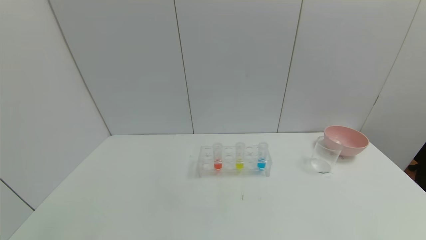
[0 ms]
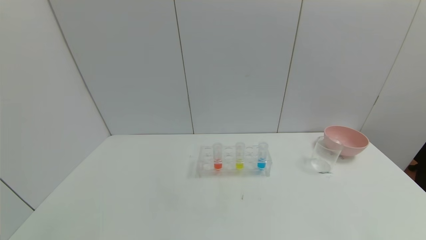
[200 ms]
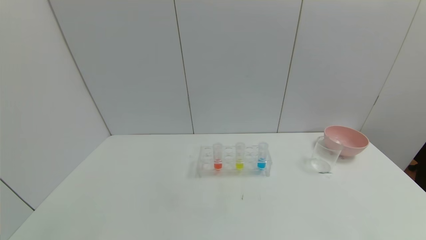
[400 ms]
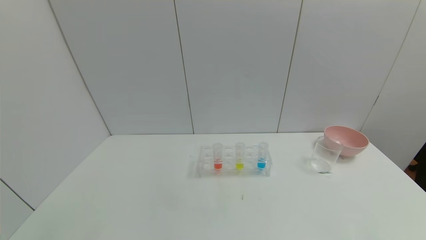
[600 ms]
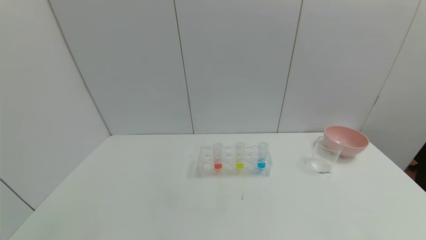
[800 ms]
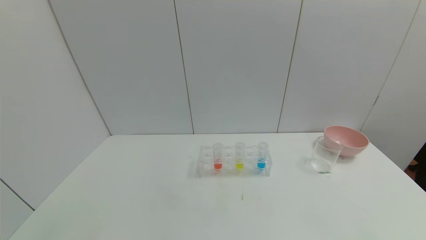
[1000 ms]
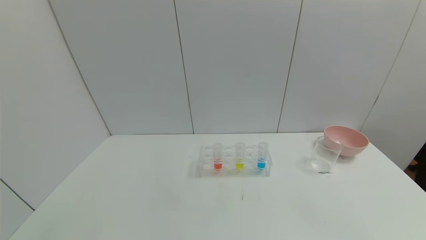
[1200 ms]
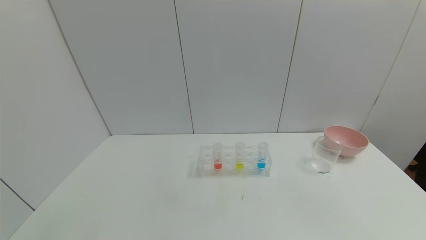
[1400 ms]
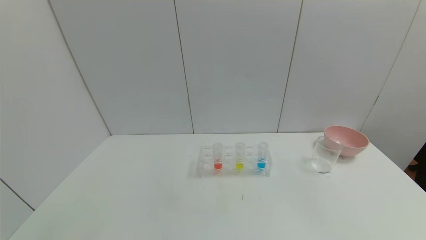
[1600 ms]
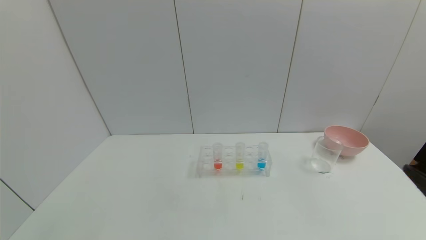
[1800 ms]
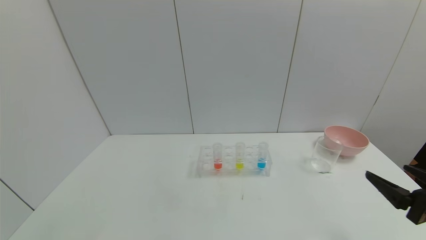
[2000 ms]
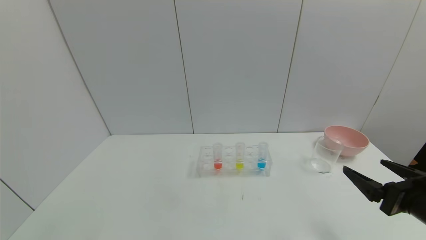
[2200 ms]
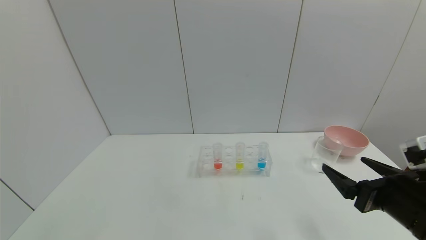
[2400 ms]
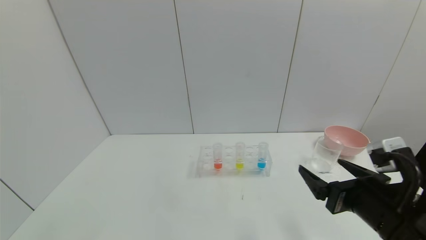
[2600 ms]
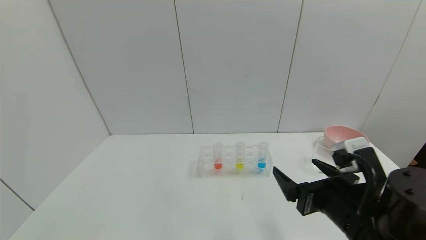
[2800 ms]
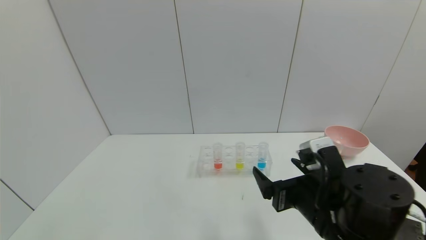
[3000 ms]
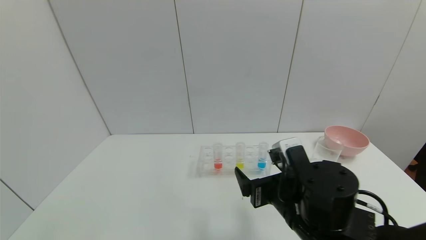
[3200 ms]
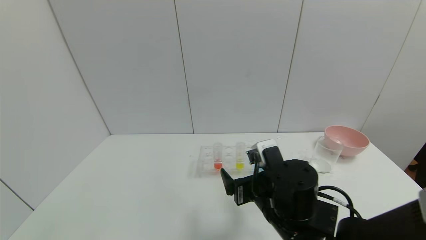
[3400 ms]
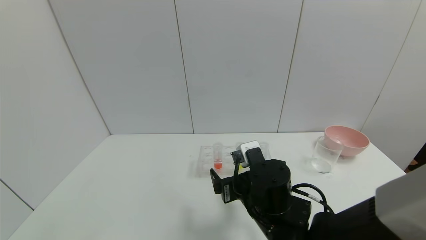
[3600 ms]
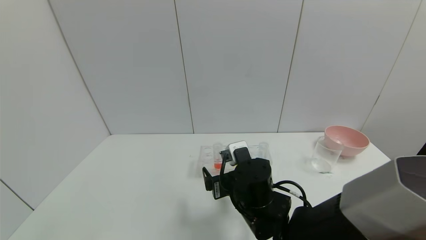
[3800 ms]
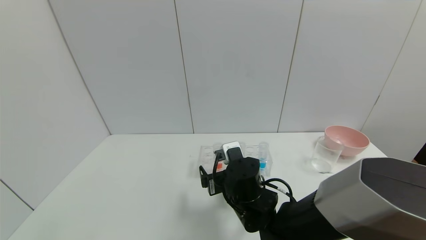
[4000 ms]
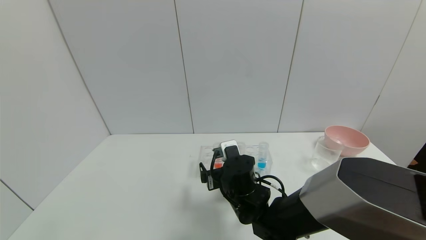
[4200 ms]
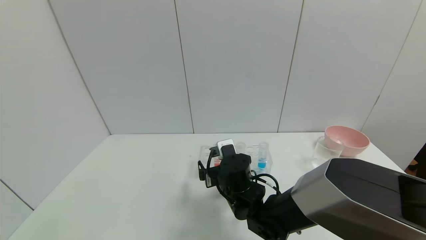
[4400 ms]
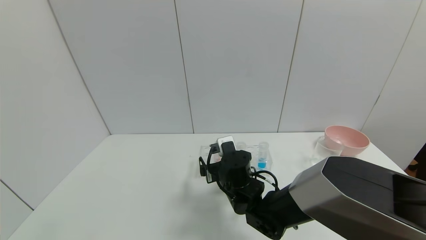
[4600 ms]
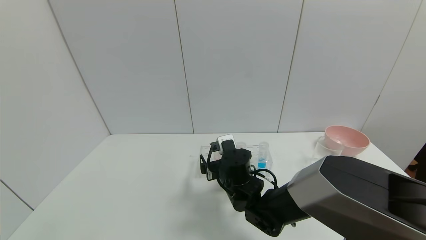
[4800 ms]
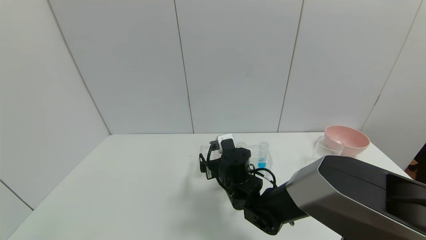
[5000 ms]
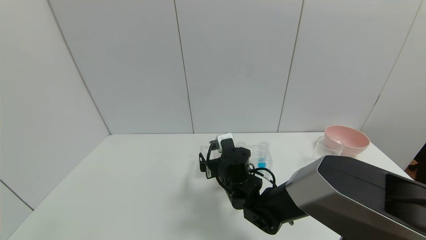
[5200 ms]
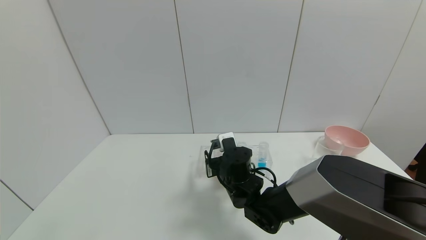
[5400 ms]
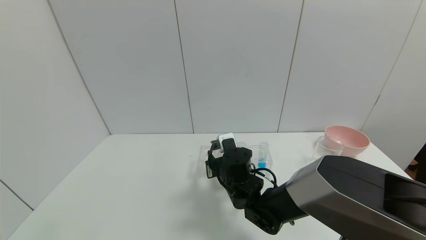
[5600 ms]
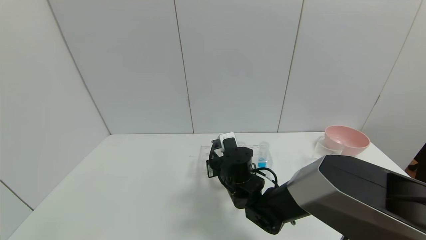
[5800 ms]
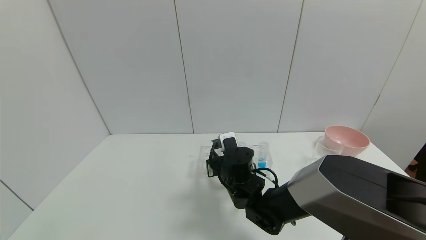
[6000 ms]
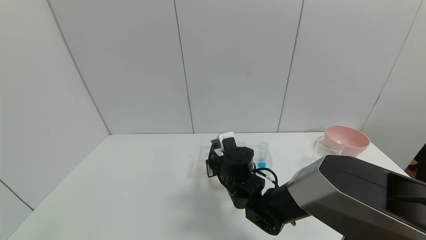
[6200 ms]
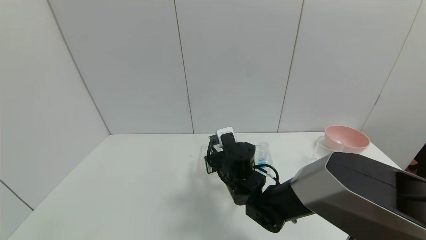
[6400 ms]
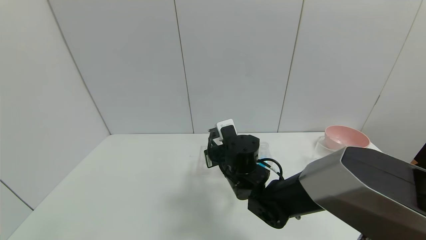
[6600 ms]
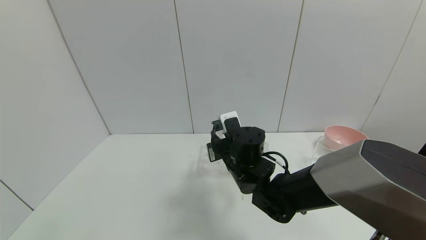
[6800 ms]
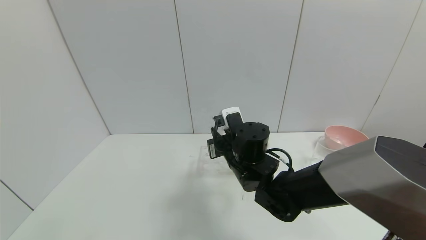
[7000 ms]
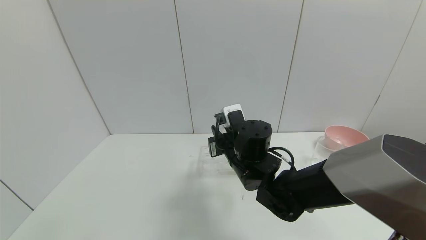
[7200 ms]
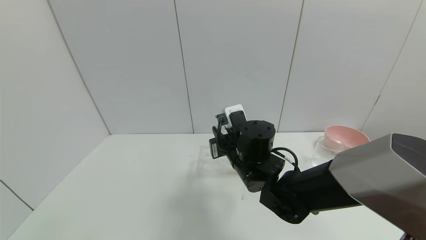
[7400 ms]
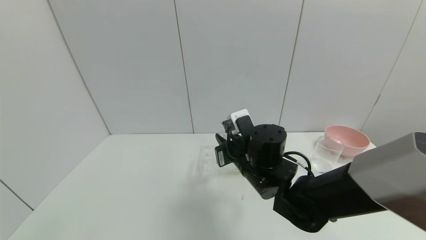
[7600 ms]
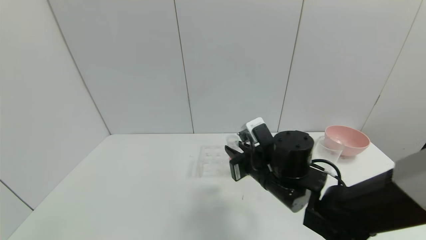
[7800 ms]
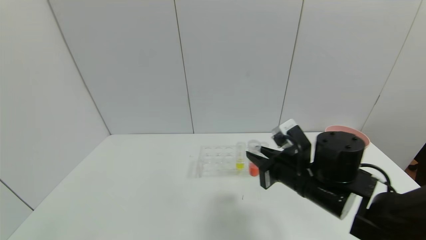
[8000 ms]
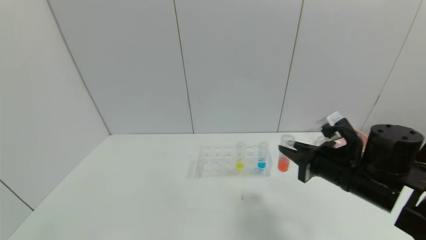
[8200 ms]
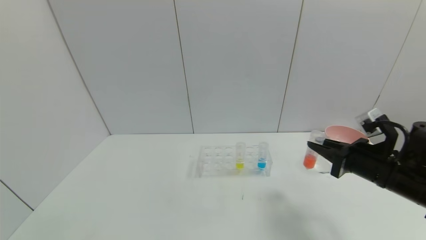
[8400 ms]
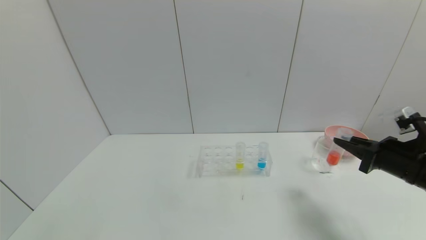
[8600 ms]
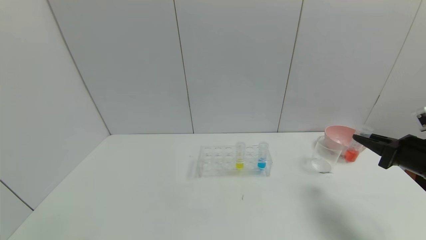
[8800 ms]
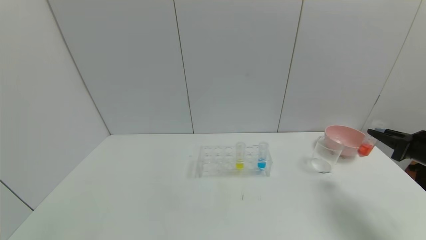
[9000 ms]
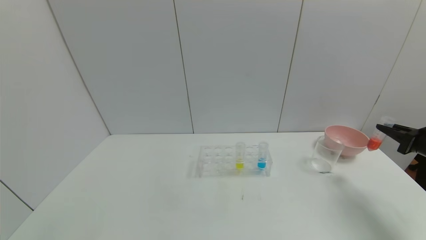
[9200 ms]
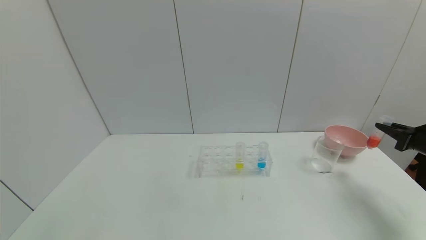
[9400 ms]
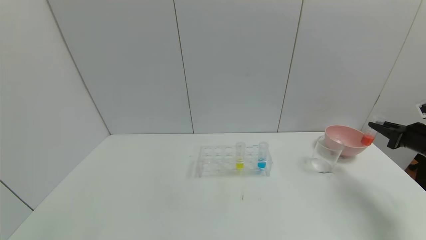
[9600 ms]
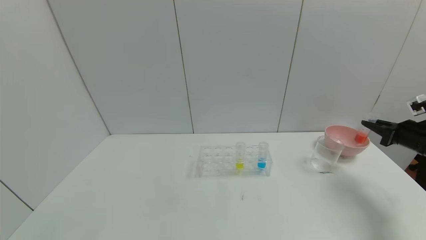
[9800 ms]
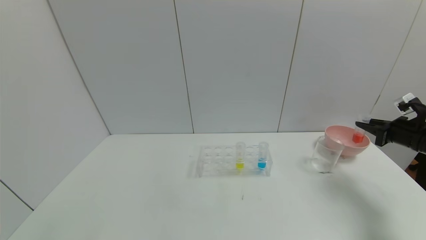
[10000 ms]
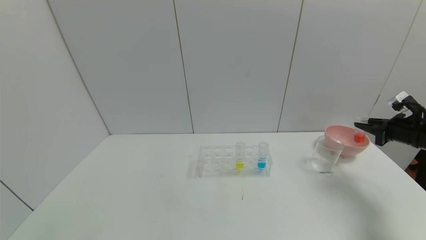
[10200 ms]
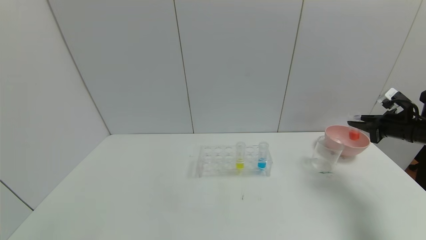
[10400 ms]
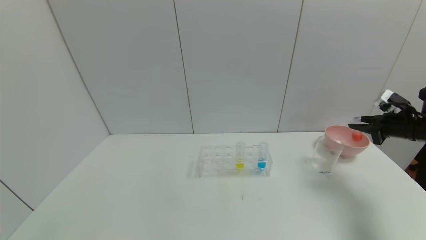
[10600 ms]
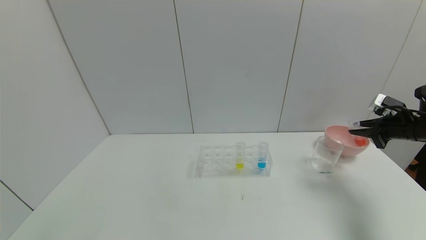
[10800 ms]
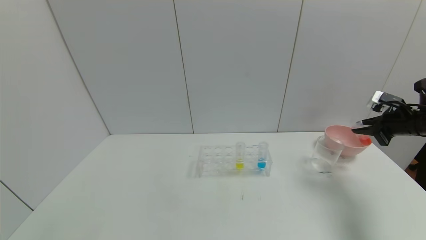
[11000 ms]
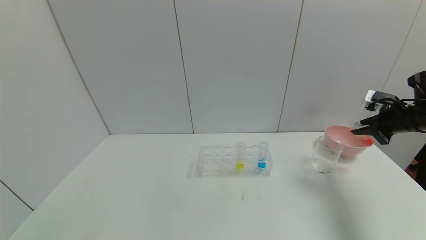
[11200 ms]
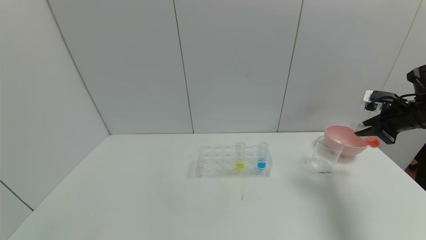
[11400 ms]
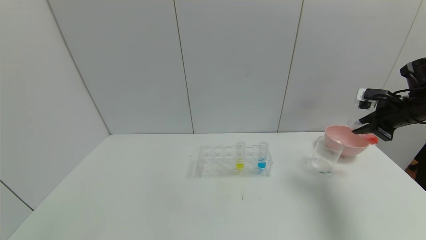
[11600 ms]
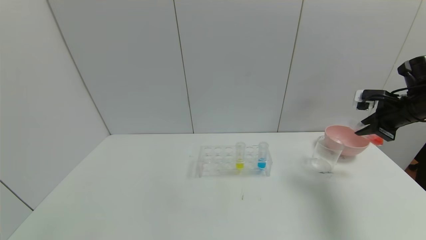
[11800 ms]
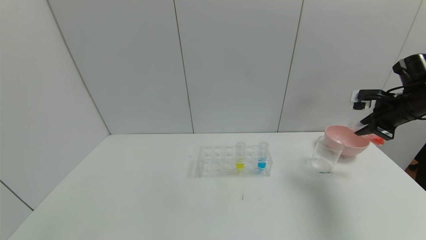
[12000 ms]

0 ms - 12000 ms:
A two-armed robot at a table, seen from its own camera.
Task of the whole recording: pick up the test tube with red pigment and the test tube with blue pigment by grippers and pour them into the container.
Step, 0 ms - 6000 ms: Grasp the red reagent with the right gripper.
1600 ms - 3000 ms: The right gripper moves to the left and forward, about 25 cm.
3000 ms - 4400 ms: The right gripper moves to the left, forward and downward, about 20 cm.
4400 ms - 6000 ms: The right gripper closes up.
6000 ms - 7600 ms: The right gripper is displaced upward by roughly 5 cm.
7600 ms - 9000 ms: The right gripper moves to the right, about 40 cm.
9000 ms - 10400 ms: The right gripper shifts about 10 cm forward.
10400 ms - 12000 ms: The right gripper heads upward and to the left, covering about 10 cm.

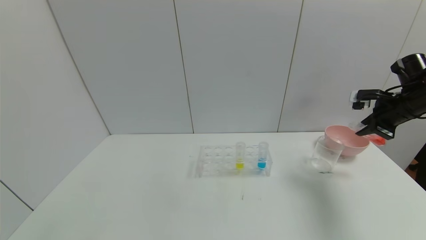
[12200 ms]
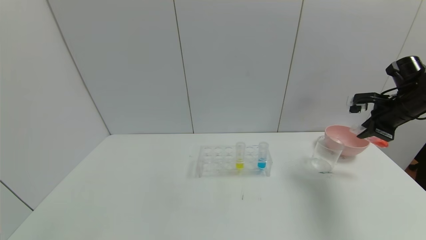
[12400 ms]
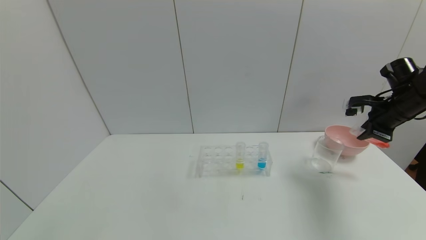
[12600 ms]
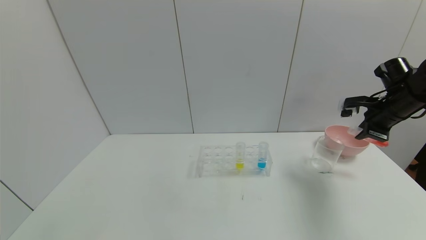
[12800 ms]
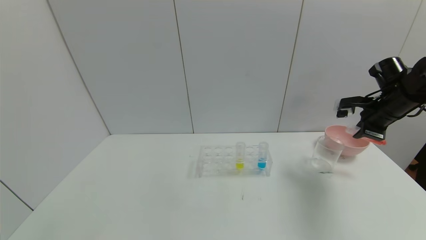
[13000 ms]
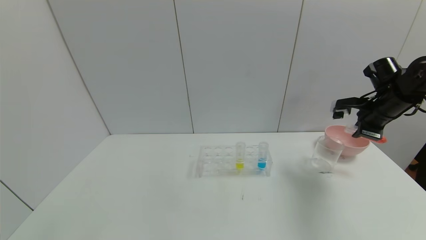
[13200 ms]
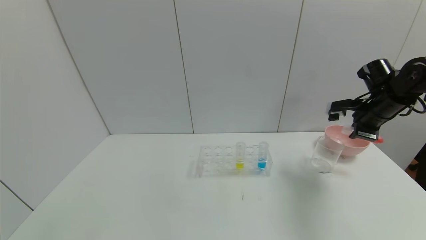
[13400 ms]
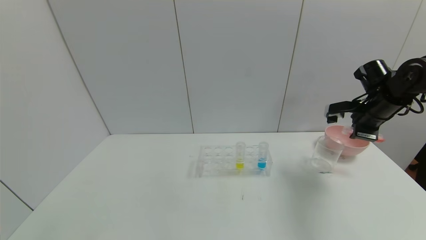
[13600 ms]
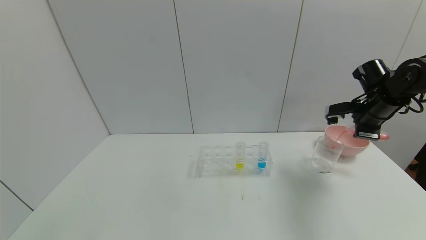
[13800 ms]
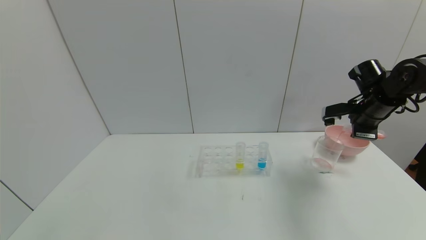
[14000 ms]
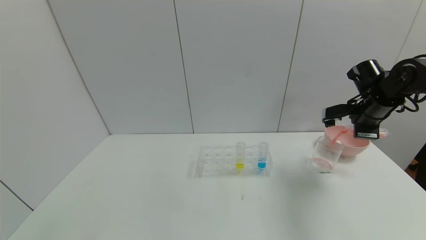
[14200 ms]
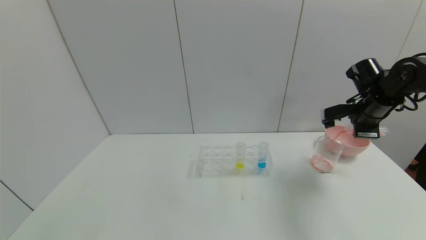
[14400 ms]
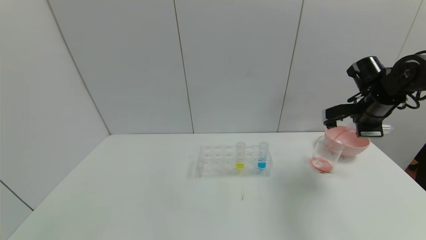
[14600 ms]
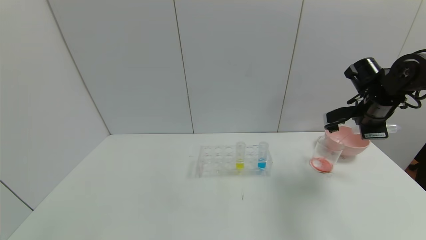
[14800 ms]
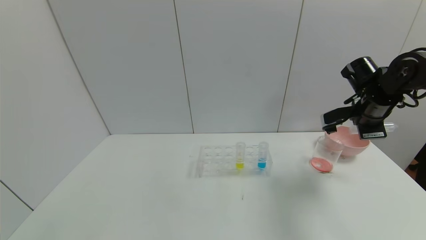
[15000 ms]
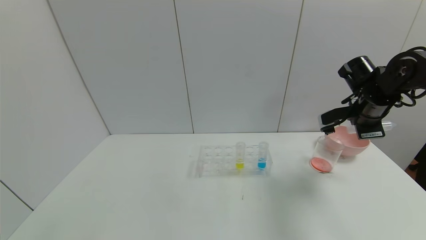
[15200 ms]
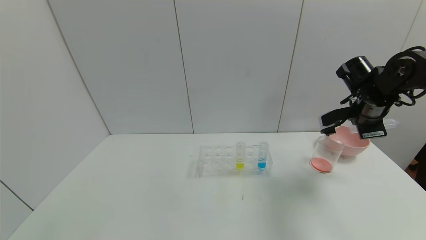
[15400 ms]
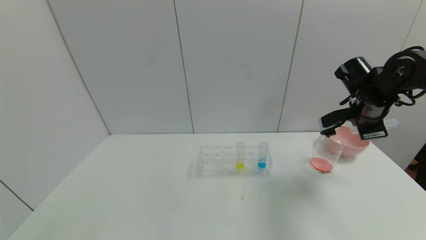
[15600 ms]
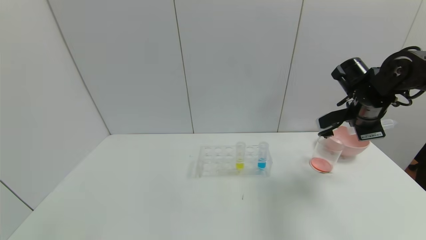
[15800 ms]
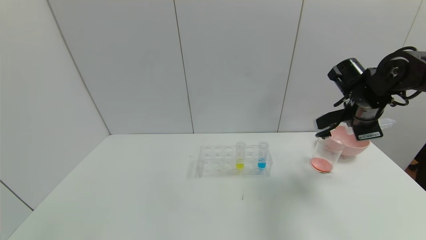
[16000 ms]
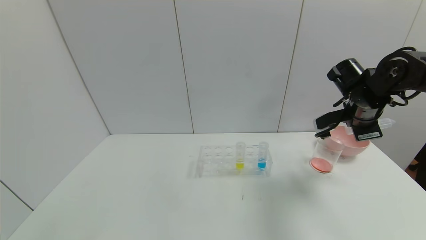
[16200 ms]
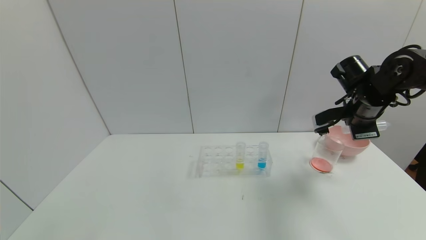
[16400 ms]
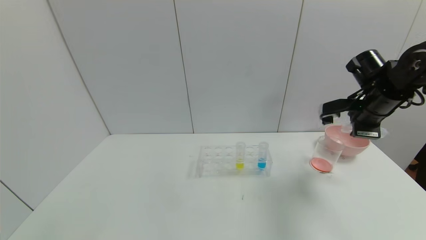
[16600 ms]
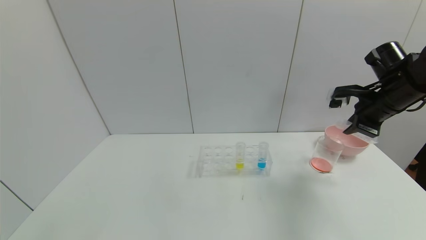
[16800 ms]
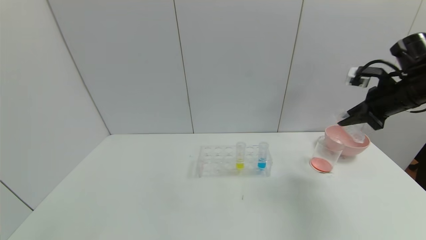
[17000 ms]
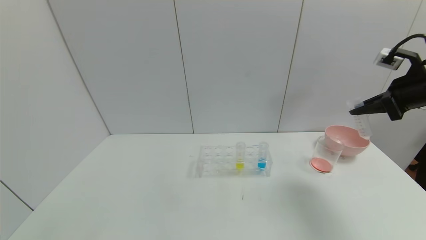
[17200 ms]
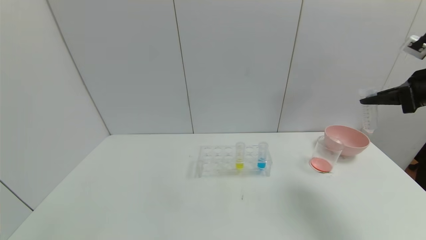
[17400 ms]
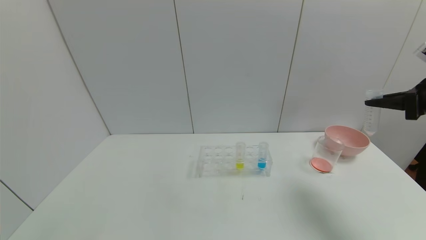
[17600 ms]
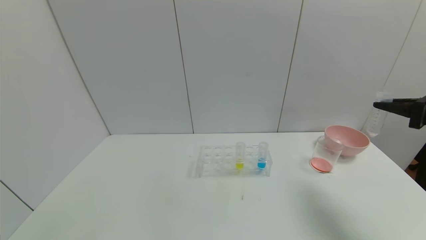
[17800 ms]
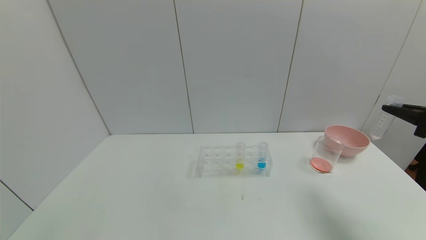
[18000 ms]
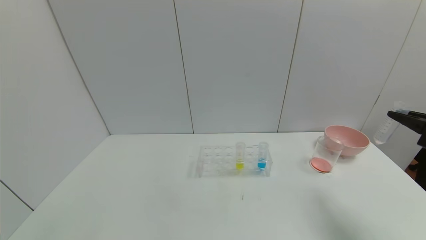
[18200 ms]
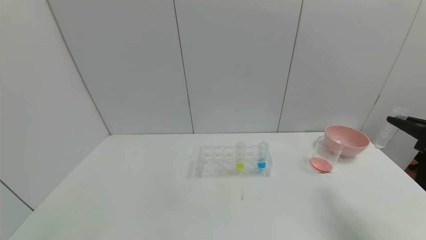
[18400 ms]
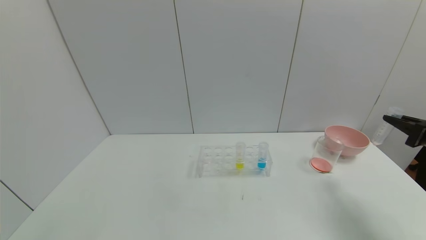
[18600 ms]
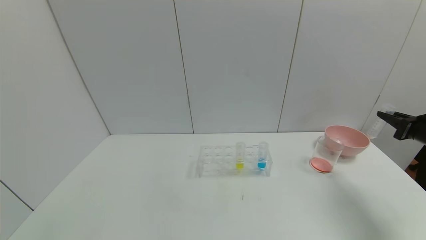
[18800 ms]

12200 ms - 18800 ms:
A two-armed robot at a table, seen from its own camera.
Task of the whole recording: pick up the test tube with red pigment and the test tube with blue pigment by grippers and pour them into the container.
Step, 12200 ms - 15600 ms: Pour the red reagent into the graduated cylinder with the right gripper.
12200 ms - 13800 ms: The right gripper moves to the left, some 5 cm.
15400 ms - 17200 ms: The right gripper shifts approximately 10 cm to the right, upward and backward.
17200 ms - 18800 ms: The right gripper is displaced downward and to the right by approximately 15 cm.
